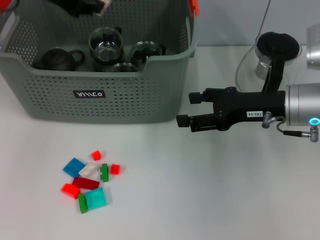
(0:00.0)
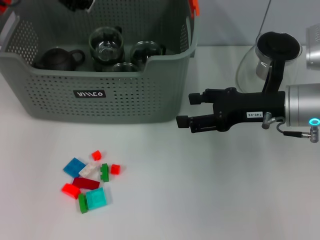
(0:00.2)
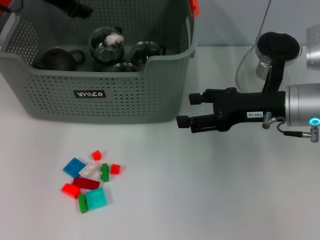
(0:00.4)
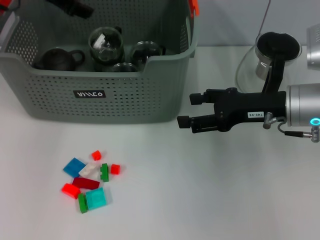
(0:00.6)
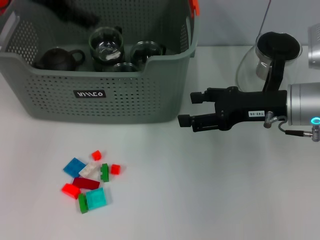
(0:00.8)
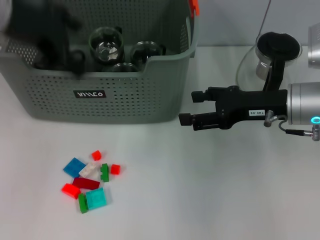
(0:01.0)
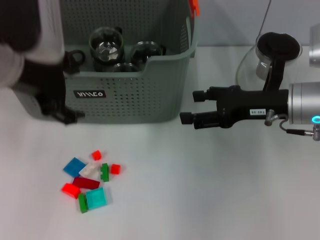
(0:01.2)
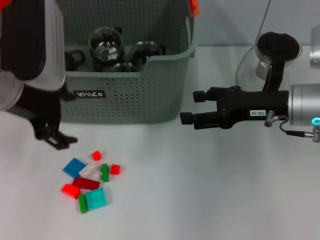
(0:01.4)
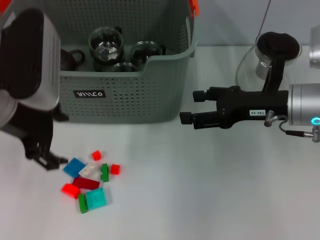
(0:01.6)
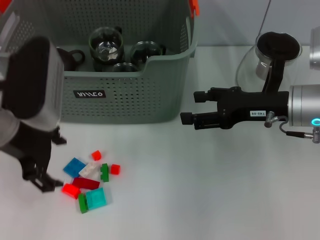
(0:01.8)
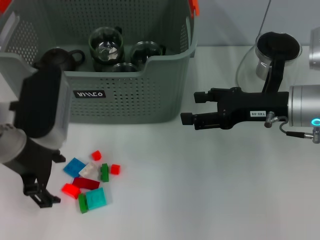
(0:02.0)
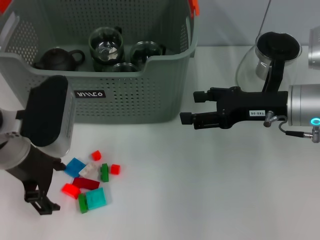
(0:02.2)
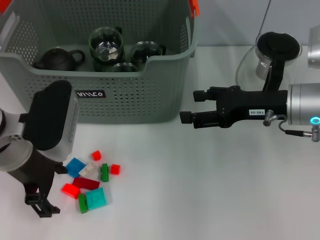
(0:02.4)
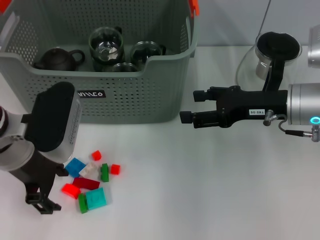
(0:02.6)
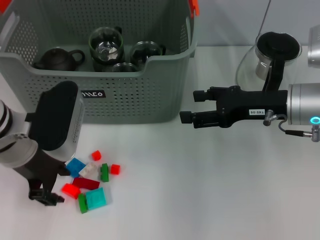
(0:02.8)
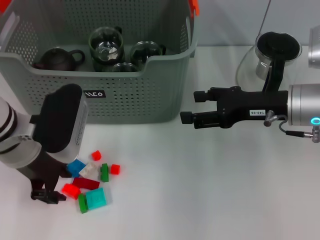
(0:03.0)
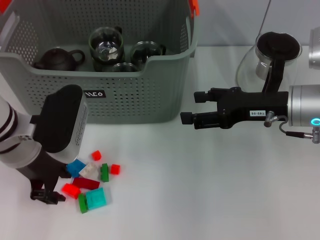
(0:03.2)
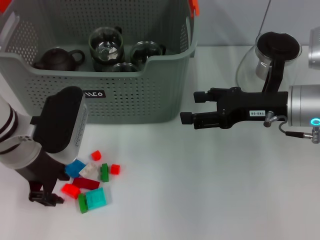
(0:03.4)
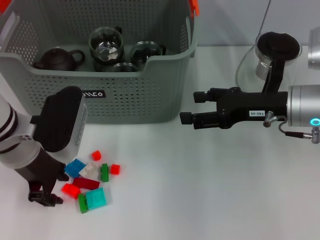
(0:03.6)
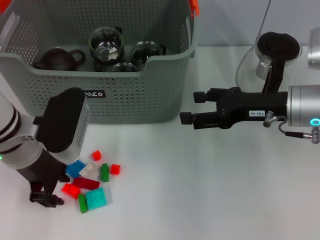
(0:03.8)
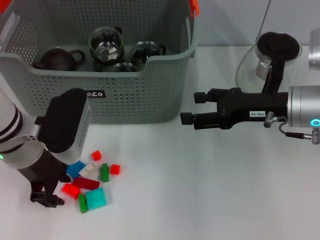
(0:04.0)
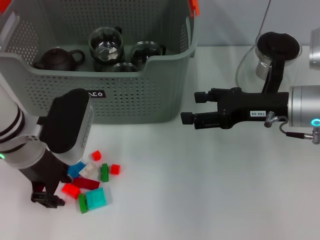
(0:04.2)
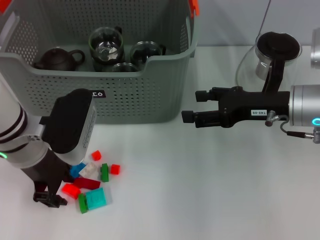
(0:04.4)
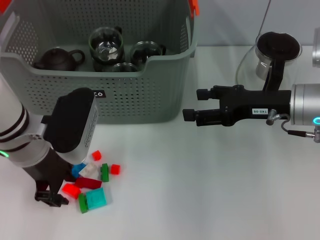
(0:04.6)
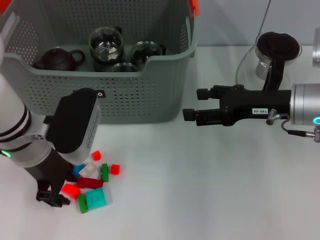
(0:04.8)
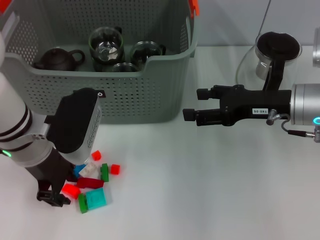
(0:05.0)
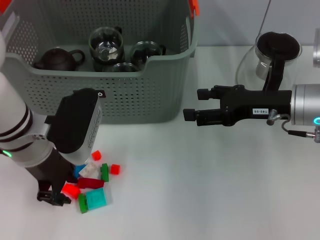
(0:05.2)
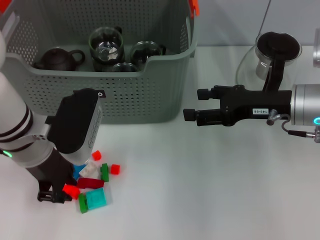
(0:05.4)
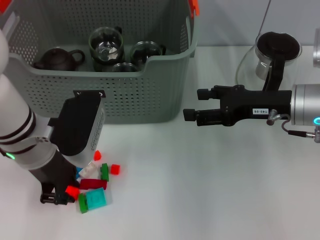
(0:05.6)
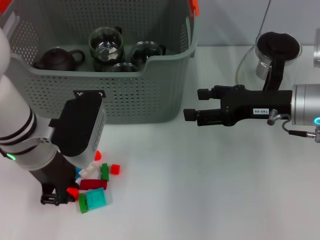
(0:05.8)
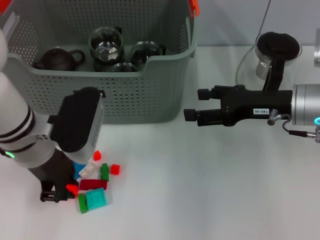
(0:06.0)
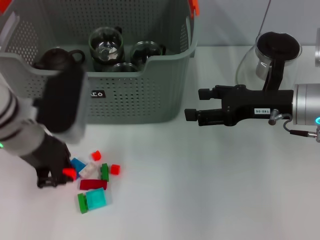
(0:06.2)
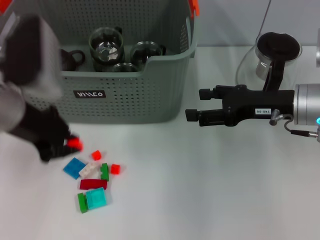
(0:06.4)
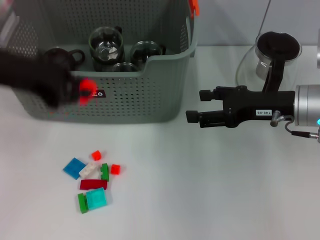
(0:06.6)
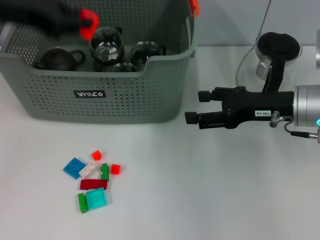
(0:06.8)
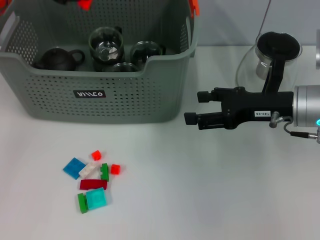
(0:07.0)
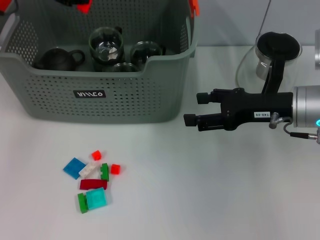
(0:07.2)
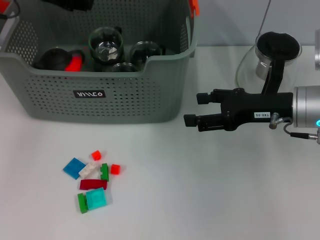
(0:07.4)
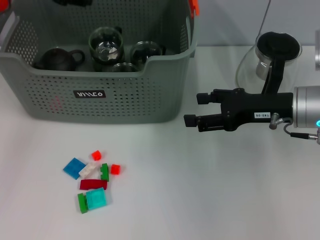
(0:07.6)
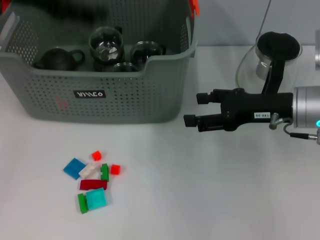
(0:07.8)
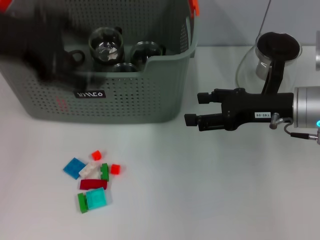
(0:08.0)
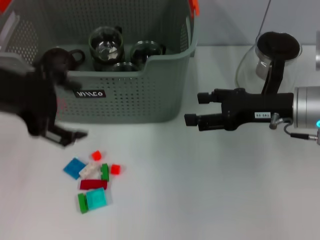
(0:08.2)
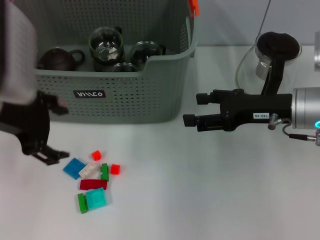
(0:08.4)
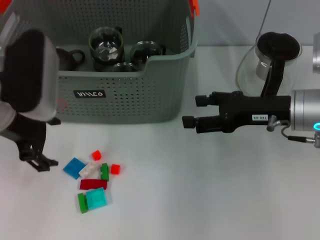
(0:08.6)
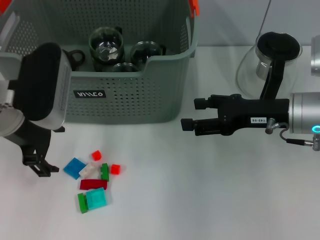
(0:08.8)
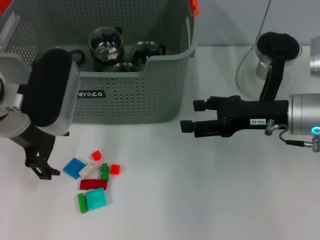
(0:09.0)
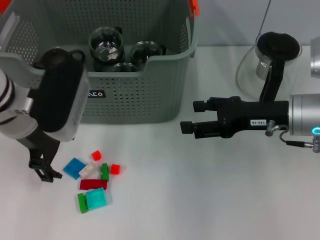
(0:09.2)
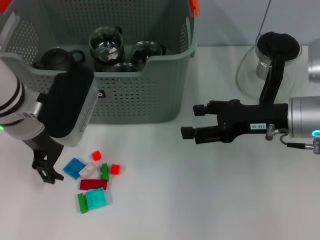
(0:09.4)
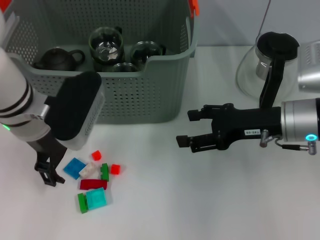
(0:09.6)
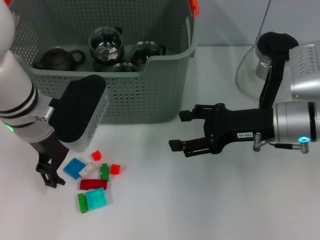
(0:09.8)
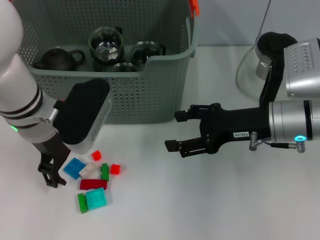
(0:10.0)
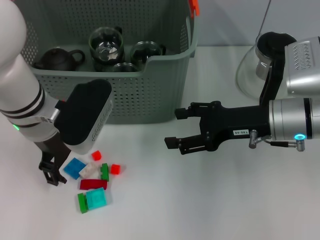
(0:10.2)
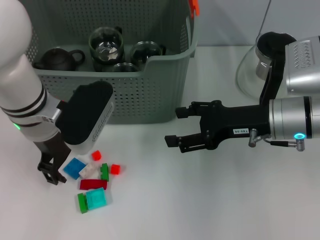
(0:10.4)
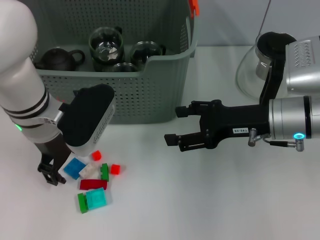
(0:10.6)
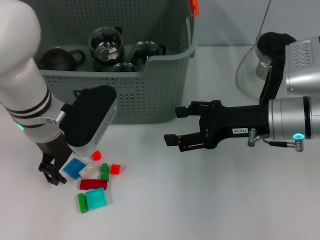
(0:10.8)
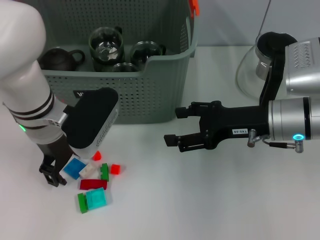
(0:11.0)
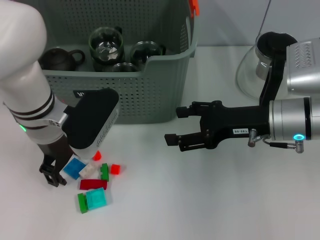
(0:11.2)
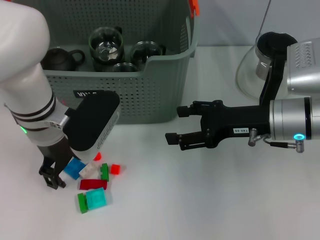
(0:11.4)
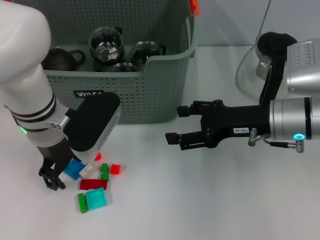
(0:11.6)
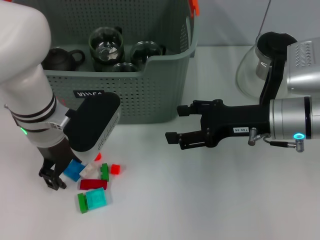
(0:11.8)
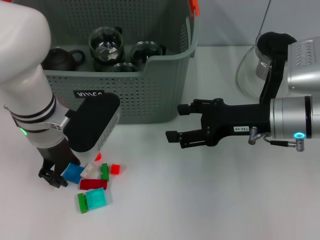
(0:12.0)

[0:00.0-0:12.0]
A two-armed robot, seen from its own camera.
Task of the whole recording: pick up the teacup on the table and place it into the storage bin, pick up the block on the table and place it into the storage bin.
Step, 0:00.6 to 0:05.8: Grasp the orange block with left gripper.
Step, 0:06.0 to 0:07.6: Place the orange block in the storage box with left gripper.
0:00.0 to 0:01.6: The left gripper heads backward and downward, covering approximately 15 cm, and opens its fingers.
0:01.6 to 0:03.0: The left gripper heads downward, covering about 10 cm, and closes.
0:03.0 to 0:04.4: Both grippers stay put.
0:04.4 to 0:06.0: Both grippers stay put.
0:06.0 to 0:07.6: The left gripper goes approximately 20 cm upward, forward and to the left.
0:07.6 to 0:09.0: The left gripper is displaced downward and backward by approximately 15 cm, and opens its fingers.
0:09.0 to 0:10.4: The left gripper shifts by some 5 cm.
0:10.4 to 0:12.0: The grippers make only small movements.

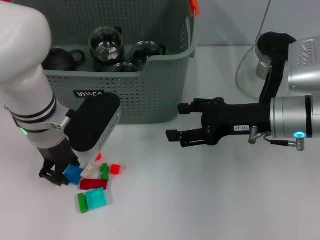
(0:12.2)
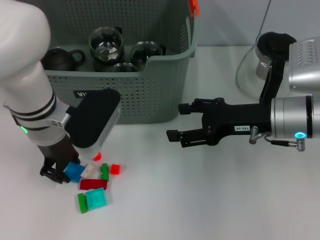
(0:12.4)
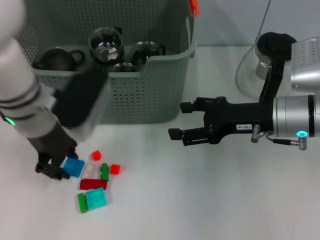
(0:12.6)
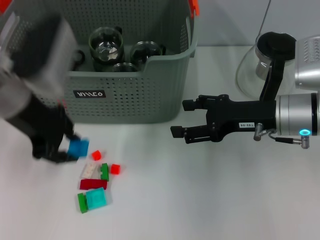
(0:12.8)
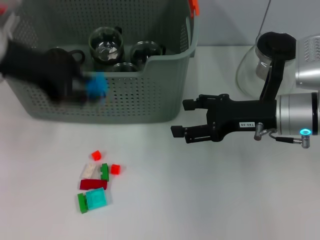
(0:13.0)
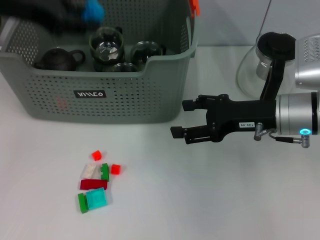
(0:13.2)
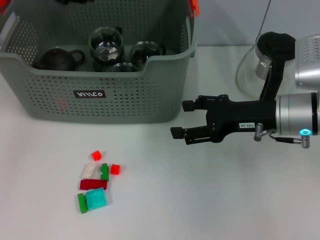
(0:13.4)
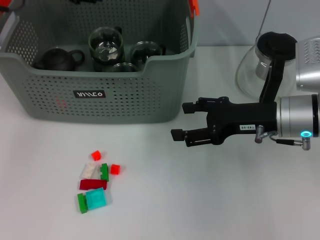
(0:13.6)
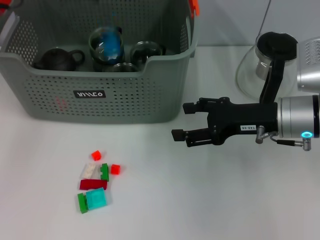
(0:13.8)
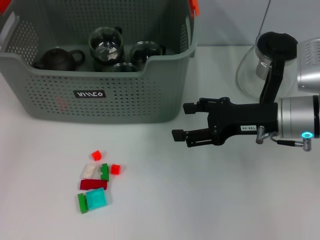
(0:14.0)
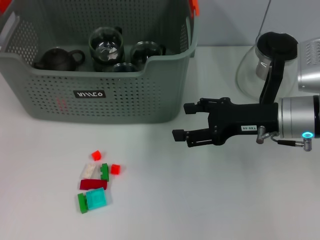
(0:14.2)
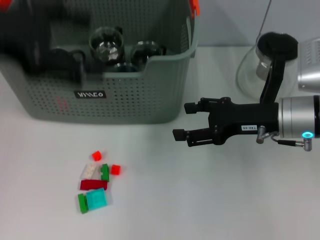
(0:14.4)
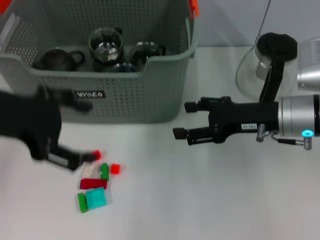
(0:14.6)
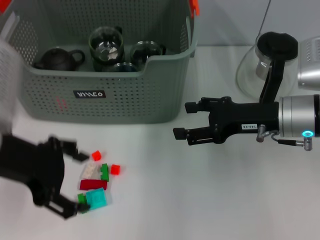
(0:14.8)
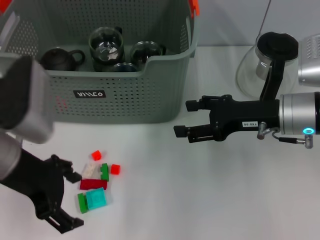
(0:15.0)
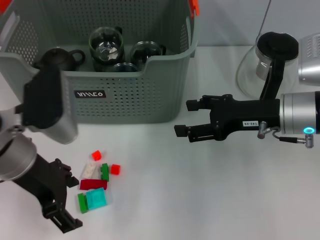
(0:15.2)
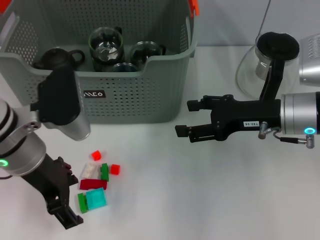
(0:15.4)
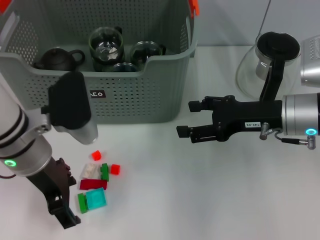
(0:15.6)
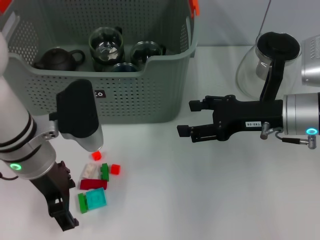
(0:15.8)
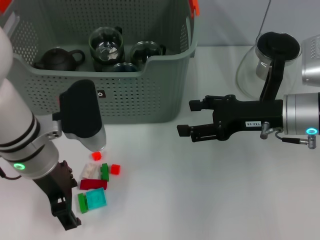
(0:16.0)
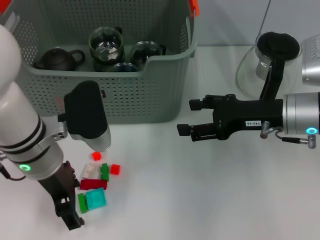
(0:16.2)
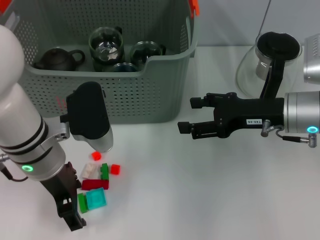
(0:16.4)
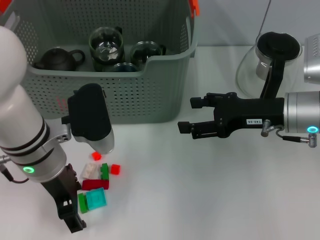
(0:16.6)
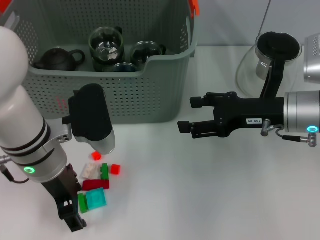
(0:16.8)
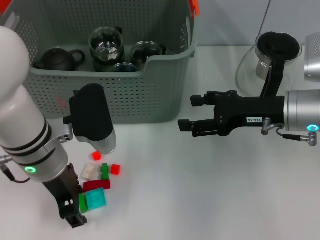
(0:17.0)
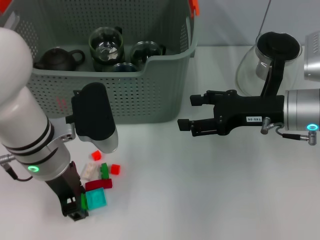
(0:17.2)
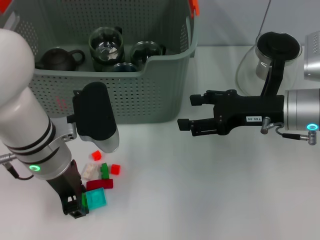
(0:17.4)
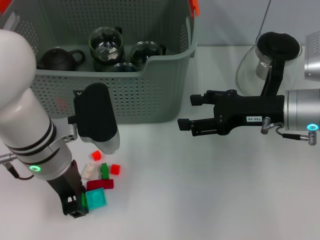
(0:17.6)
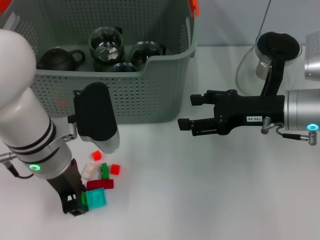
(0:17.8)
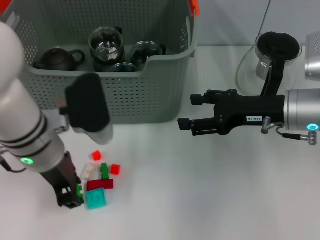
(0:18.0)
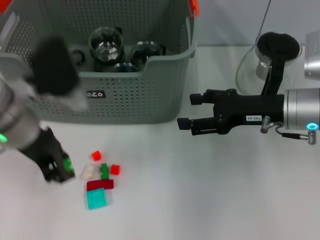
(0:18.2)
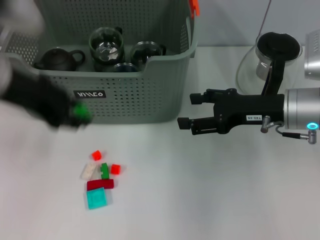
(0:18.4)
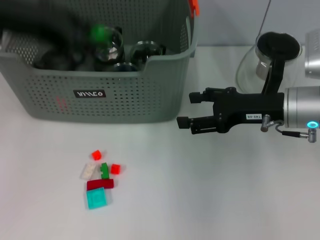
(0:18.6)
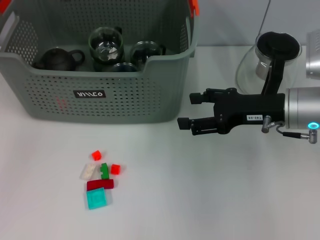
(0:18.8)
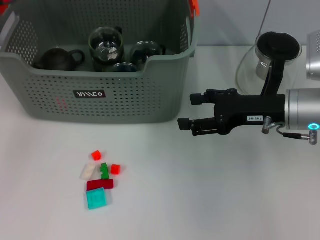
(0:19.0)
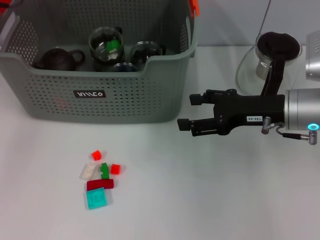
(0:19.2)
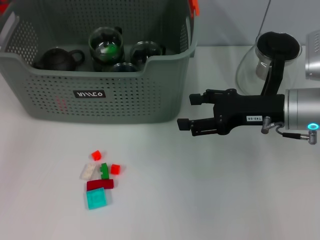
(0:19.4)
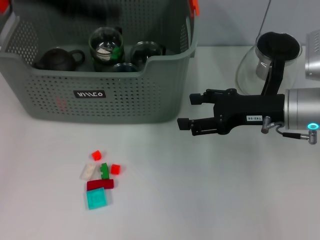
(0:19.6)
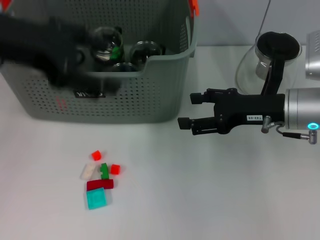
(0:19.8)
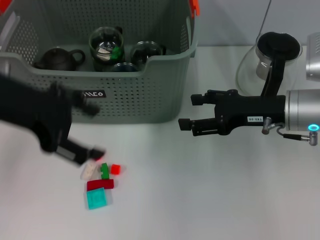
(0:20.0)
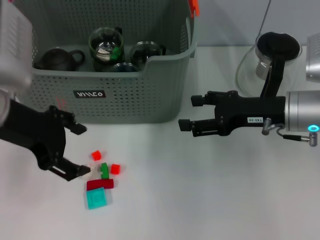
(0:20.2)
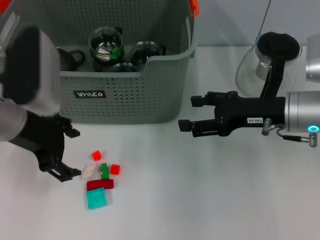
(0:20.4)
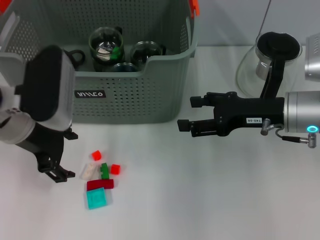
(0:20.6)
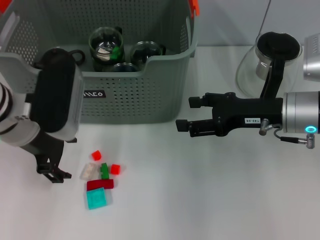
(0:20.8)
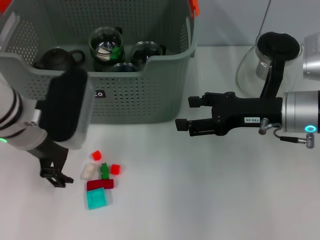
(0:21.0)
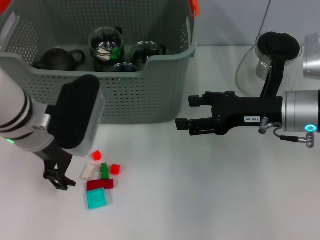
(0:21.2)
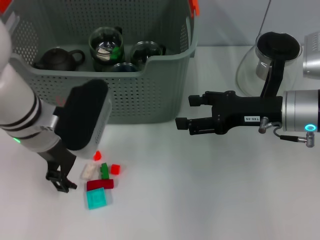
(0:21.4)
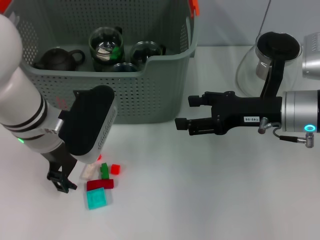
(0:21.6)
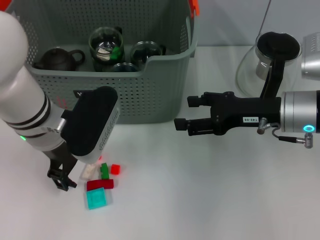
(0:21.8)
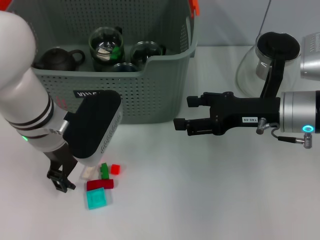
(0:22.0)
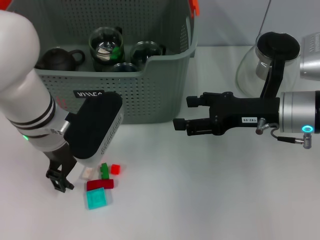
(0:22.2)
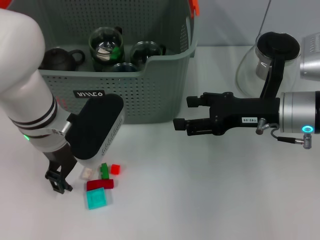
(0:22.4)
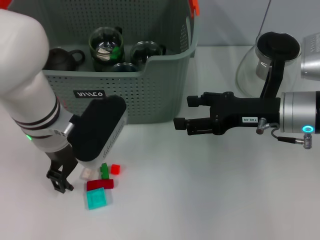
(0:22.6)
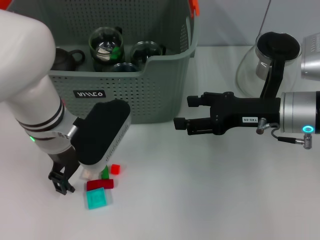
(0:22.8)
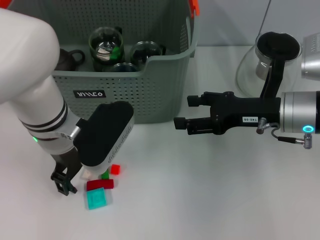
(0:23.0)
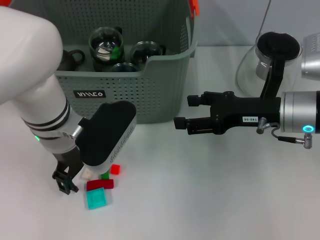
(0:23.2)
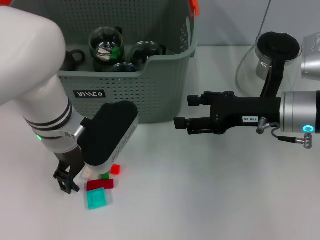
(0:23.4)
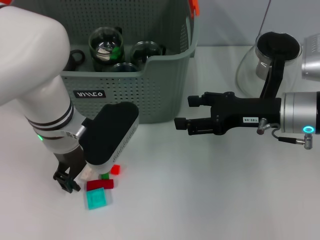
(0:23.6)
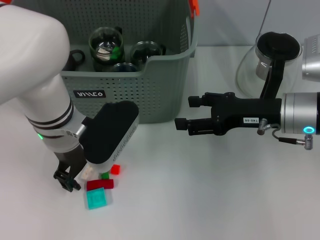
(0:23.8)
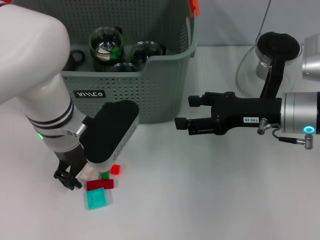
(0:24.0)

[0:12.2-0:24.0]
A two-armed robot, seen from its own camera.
Task of the whole recording: pick up the teacup on the table and place it into the storage bin, pick up the block on the table and place it into the storage bin.
Step, 0:12.4 to 0:14.0: Place the dark blue block in the storage box with left gripper.
Step, 0:14.2 to 0:17.8: Grasp the green block with left gripper.
Step, 0:18.0 to 0:19.2: Place the green block in the storage box with left gripper.
0:12.2 to 0:13.6: The left gripper heads upward, forward and to the left, covering roughly 20 cm.
0:13.6 to 0:15.2: The left gripper shifts approximately 20 cm backward and downward, and opens its fingers.
0:15.2 to 0:16.6: The left gripper ends up about 5 cm from where it was.
0:16.6 to 0:18.2: The left gripper changes place by approximately 5 cm, and closes.
0:18.2 to 0:19.6: The left gripper travels upward, forward and to the left by roughly 15 cm, and opens up.
0:19.6 to 0:21.0: The left gripper shifts some 15 cm downward.
0:21.0 to 0:22.6: The grippers make only small movements.
0:22.6 to 0:24.0: The grippers make only small movements.
